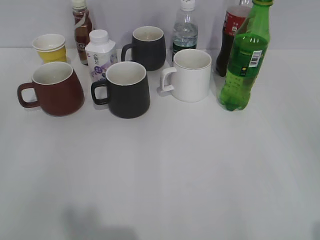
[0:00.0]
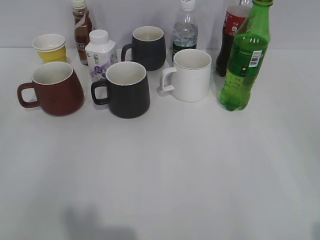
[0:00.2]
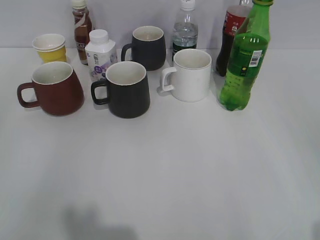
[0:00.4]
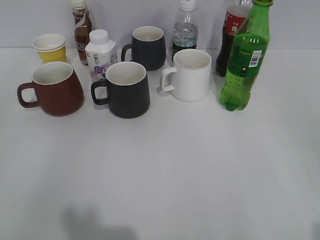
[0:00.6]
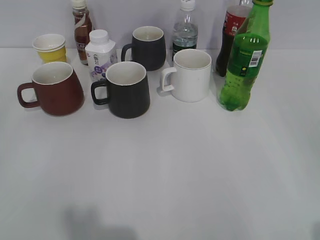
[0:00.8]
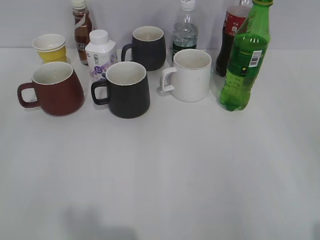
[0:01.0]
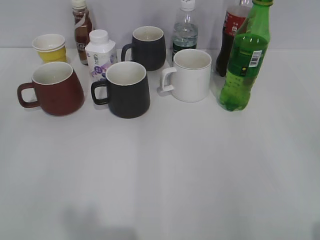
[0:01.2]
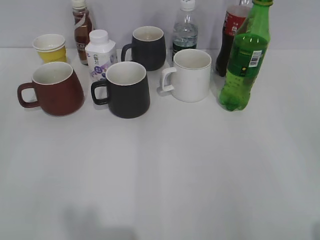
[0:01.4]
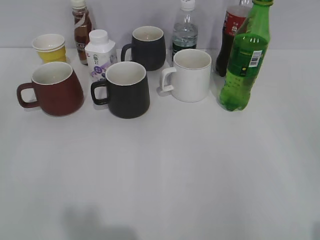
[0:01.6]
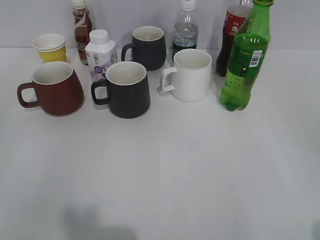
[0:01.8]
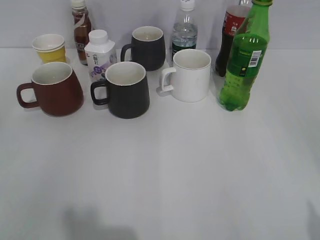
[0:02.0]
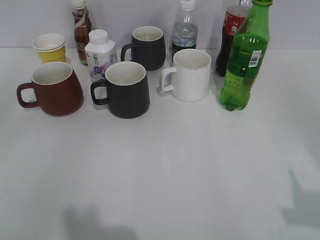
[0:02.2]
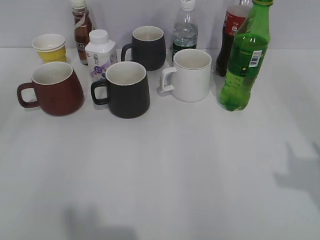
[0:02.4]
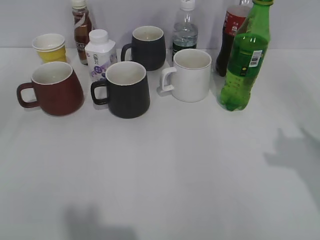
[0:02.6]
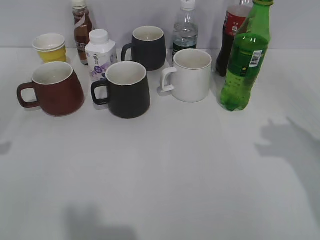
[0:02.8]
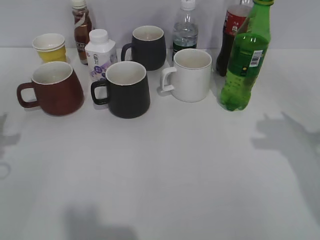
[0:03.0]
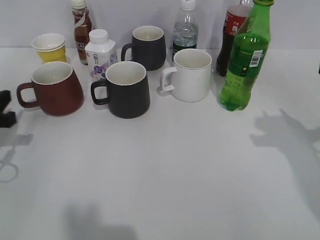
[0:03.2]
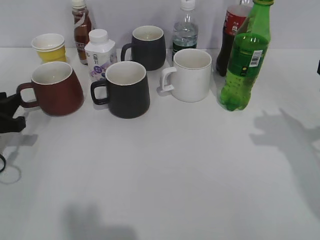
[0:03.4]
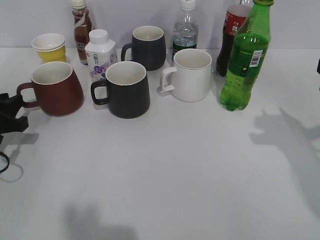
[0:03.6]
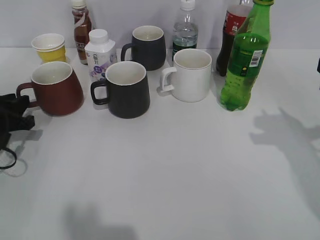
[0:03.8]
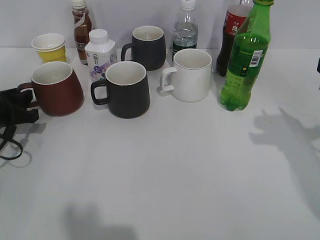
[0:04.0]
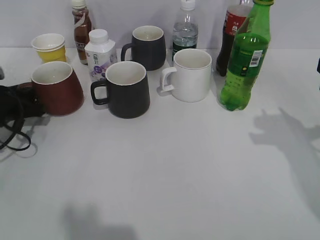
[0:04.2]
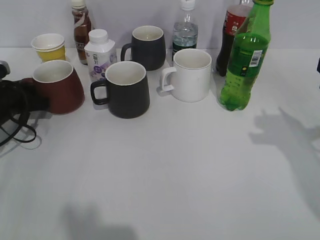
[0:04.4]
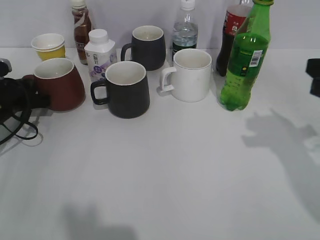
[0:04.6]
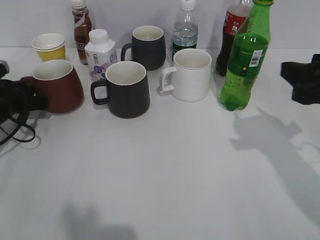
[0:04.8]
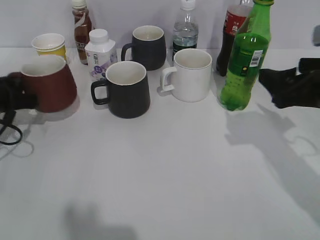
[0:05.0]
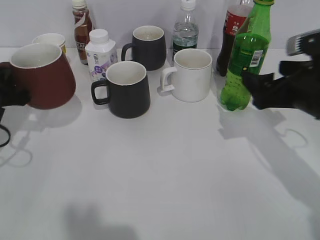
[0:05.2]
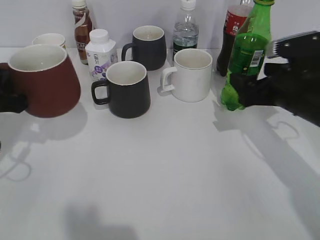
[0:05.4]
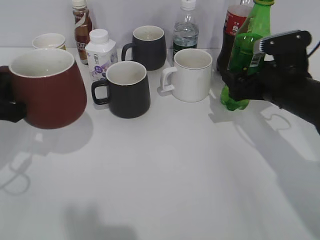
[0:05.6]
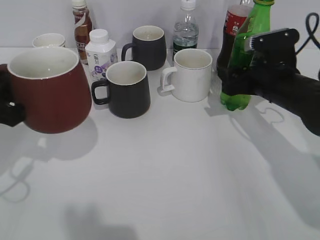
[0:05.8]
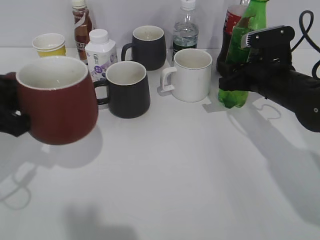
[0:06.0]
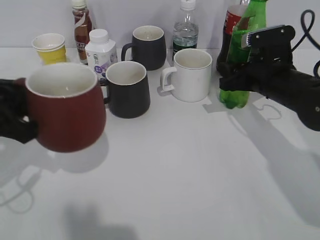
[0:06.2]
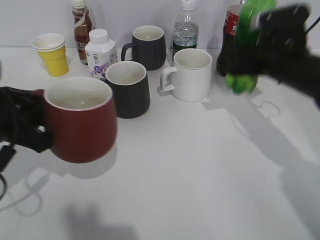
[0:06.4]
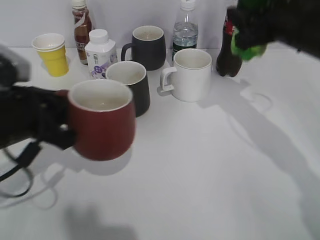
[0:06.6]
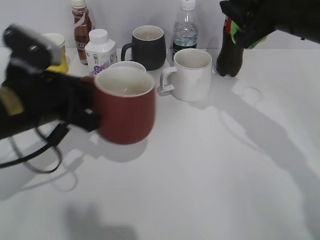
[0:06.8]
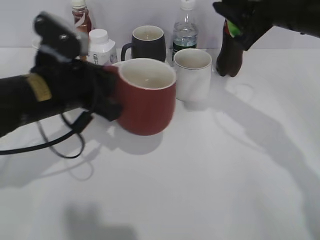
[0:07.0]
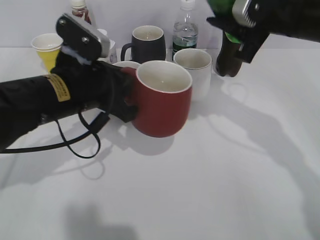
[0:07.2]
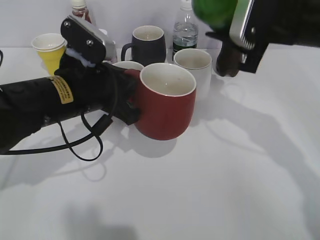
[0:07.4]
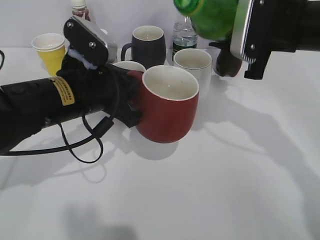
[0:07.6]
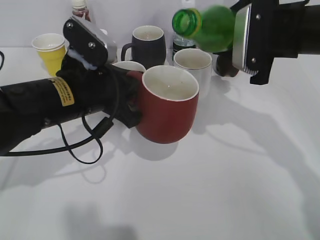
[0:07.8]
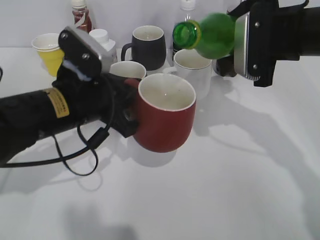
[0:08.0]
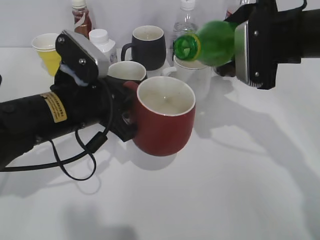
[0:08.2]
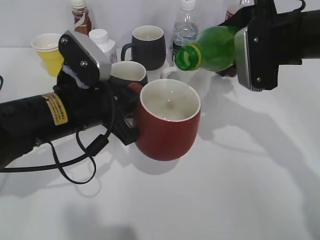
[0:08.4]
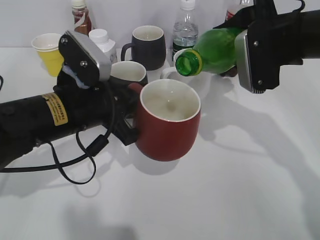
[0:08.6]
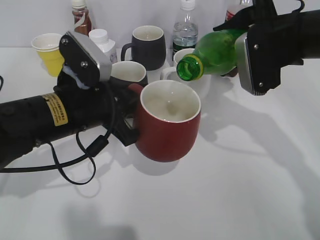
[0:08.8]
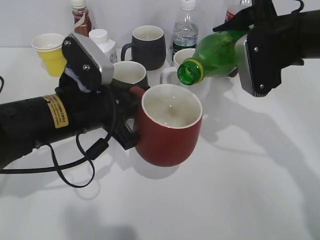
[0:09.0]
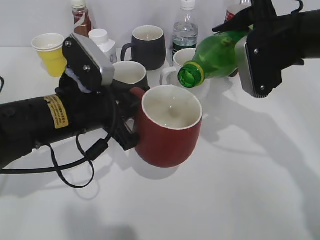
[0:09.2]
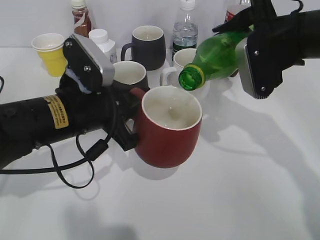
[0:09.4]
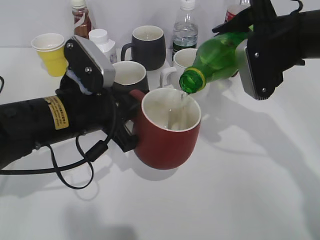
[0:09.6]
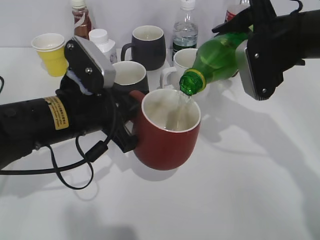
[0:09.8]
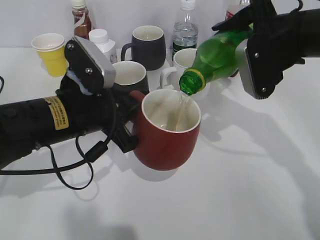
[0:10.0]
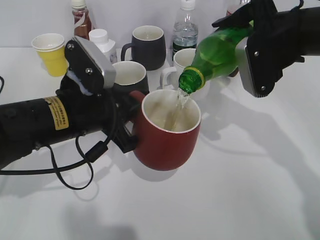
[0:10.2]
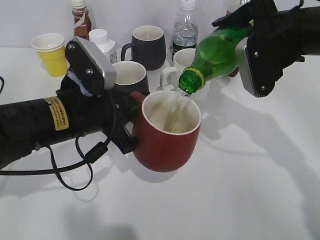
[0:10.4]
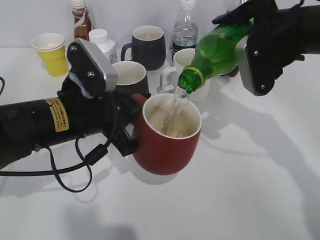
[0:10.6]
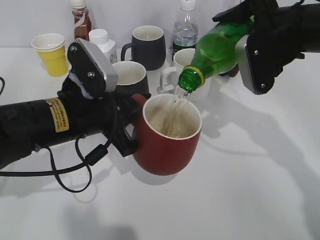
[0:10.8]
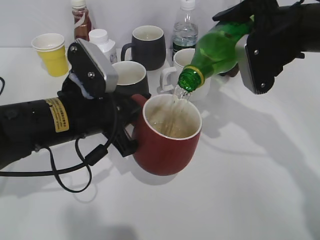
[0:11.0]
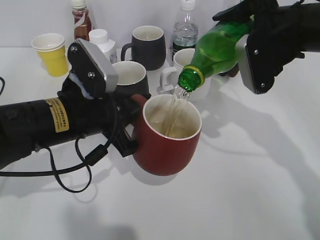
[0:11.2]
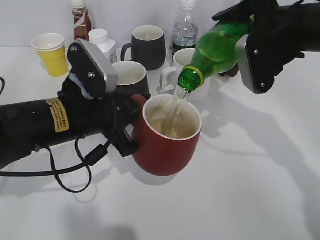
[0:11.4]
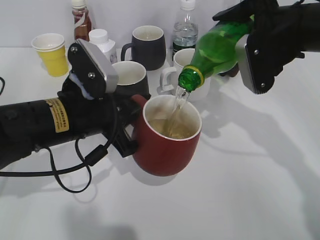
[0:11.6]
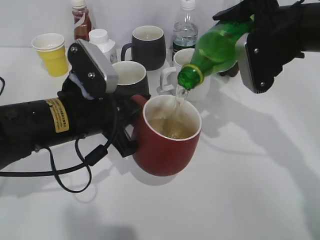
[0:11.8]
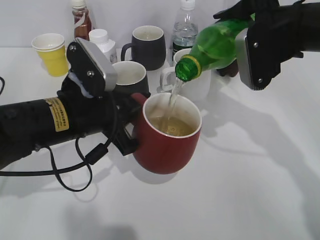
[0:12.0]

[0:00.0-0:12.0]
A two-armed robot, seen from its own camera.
Step, 1.8 to 4.4 s: Grasp the red cup with left gripper.
Step, 4.6 to 6.0 s: Grasp the bottle with sprite with right gripper.
1.6 to 3.0 s: The right gripper moves forward, roughly 20 cm, and closes.
3.0 to 4.4 s: The left gripper travels forward and downward by some 15 cm.
4.4 to 6.0 s: The right gripper is displaced forward, downward and to the left by roughly 20 cm, and opens its fingers, while the left gripper moves backward and upward, approximately 20 cm, and closes its fingers.
6.0 to 7.6 s: The right gripper travels upward by about 10 cm. Meanwhile the left gripper heads to the right and forward, covering approximately 15 cm.
9.0 to 10.4 s: The grippers move only a little.
10.4 to 12.0 s: The two grippers keep their place.

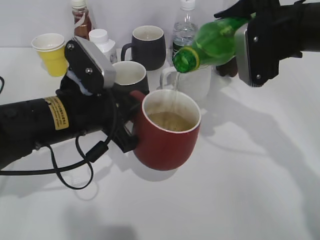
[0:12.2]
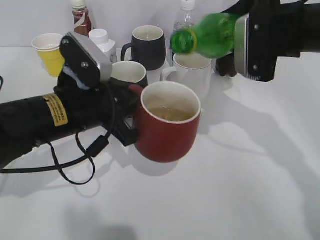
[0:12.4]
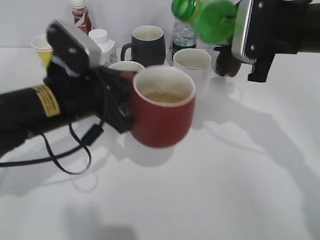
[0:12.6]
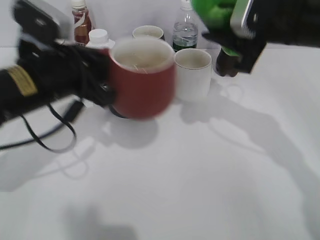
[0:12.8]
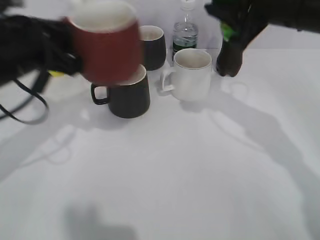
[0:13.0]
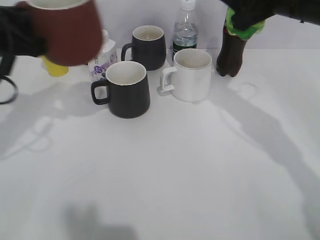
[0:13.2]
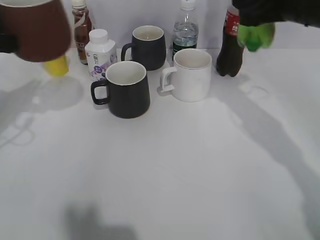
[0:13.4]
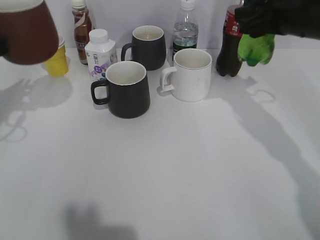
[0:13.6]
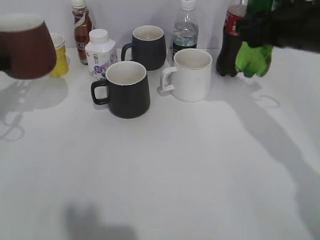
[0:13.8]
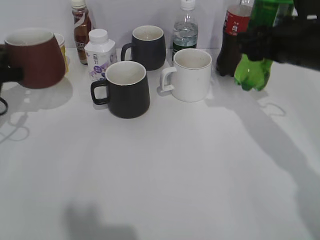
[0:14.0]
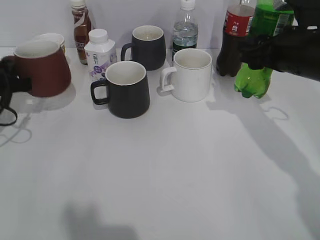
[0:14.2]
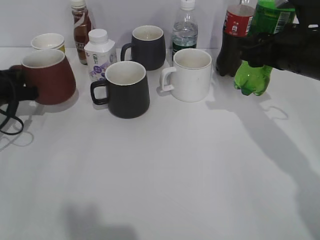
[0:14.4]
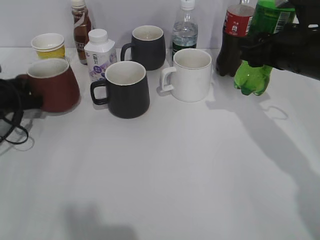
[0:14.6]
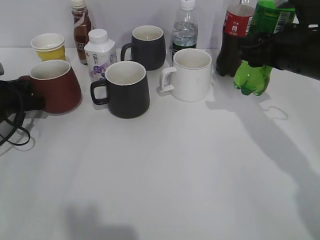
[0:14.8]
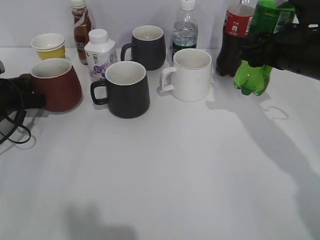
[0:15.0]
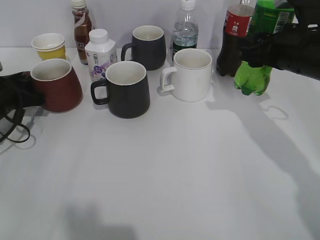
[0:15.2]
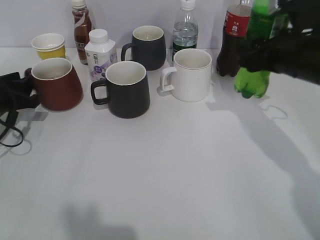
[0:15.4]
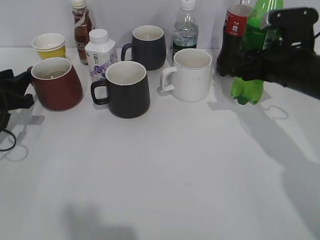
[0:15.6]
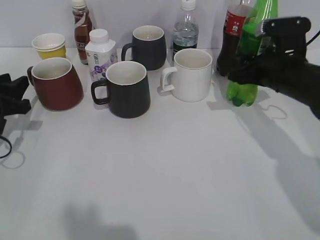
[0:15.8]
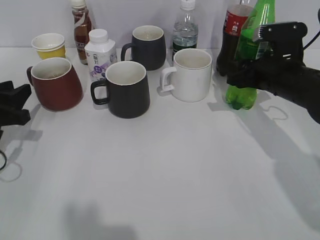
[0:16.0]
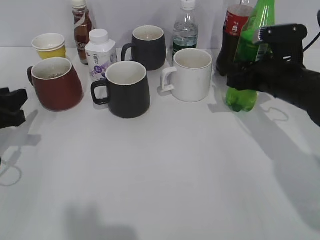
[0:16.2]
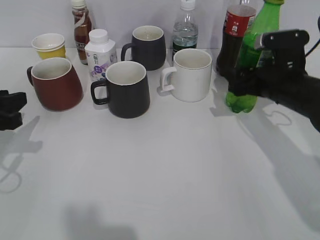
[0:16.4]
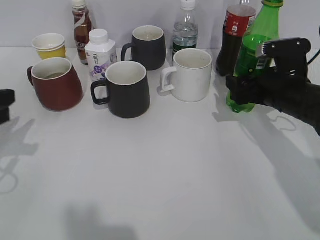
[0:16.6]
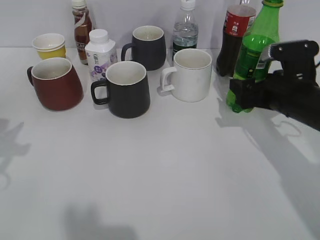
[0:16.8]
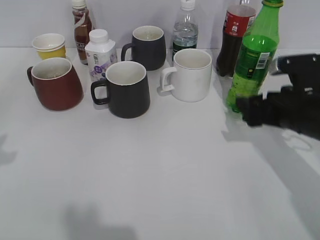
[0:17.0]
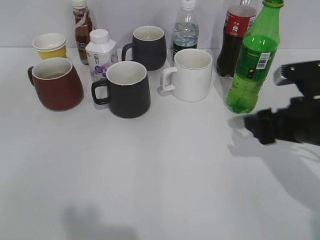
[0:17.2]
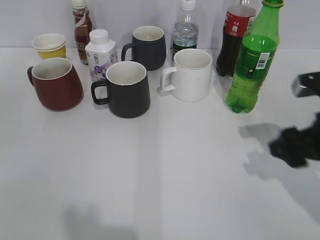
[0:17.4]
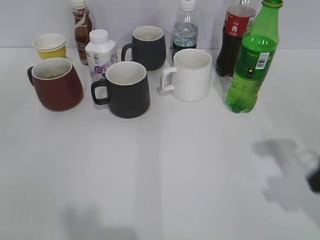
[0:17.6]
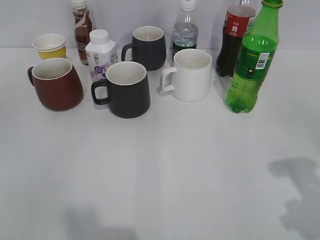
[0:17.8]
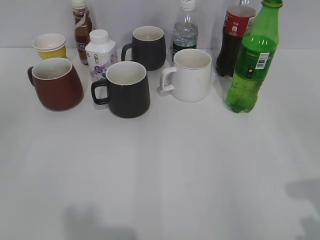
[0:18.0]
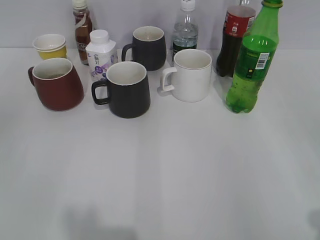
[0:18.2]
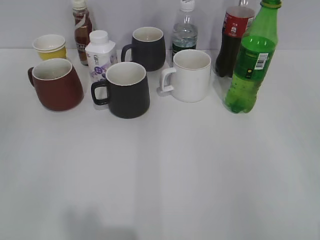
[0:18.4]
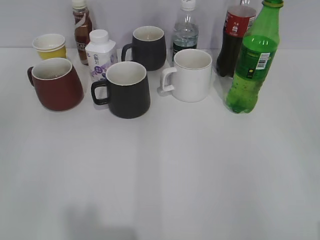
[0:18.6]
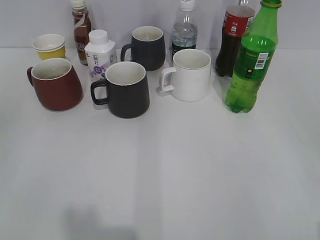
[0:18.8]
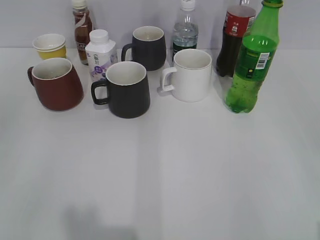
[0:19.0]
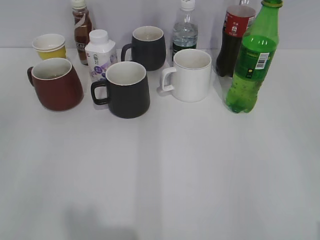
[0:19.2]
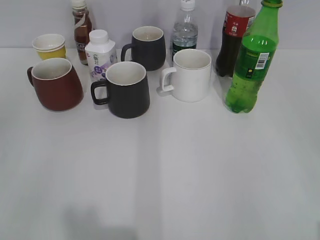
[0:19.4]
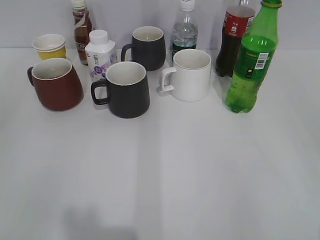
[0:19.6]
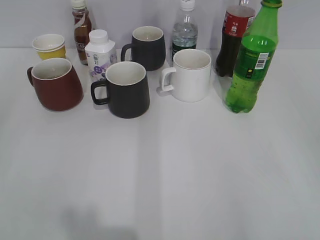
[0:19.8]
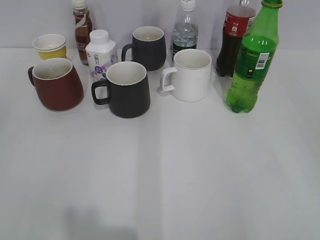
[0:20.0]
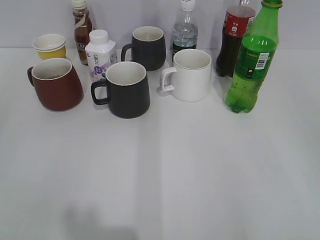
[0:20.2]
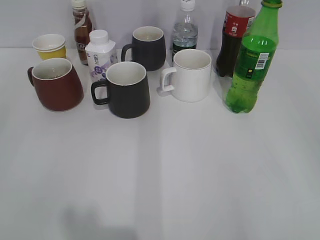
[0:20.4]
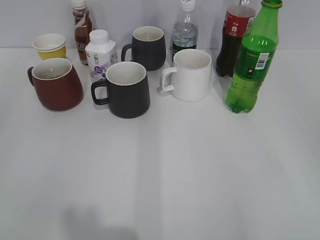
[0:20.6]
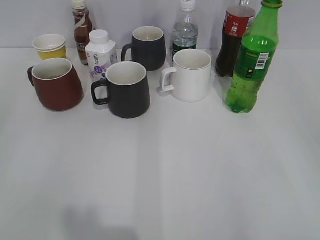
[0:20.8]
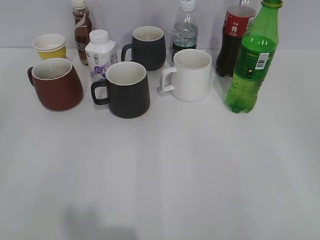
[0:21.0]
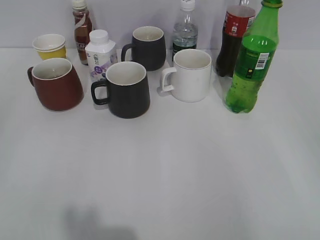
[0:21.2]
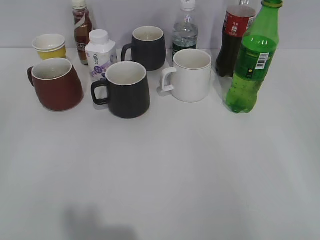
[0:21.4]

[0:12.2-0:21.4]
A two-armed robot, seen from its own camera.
Step, 12.6 to 13.2 s: Place the red cup on the table with left gripper.
Step, 13.4 to 17.0 s: Place the sprite bottle on the table with right gripper.
12.2 to 13.8 s: The left gripper shifts approximately 20 cm to the left.
13.8 to 15.2 s: The left gripper moves downward, roughly 10 cm, and opens up.
15.2 to 16.8 s: The left gripper travels backward and upward by roughly 20 cm. The right gripper goes approximately 5 cm downward, and opens up.
16.8 to 18.4 s: The left gripper goes some 15 cm backward. The right gripper travels backward and upward by roughly 35 cm.

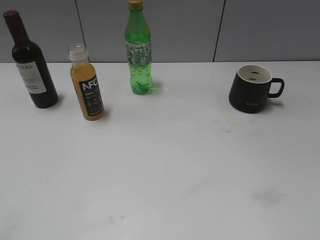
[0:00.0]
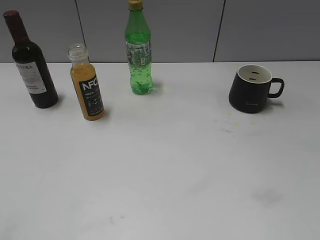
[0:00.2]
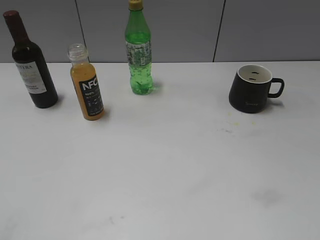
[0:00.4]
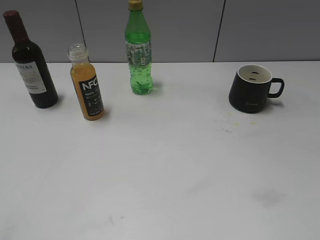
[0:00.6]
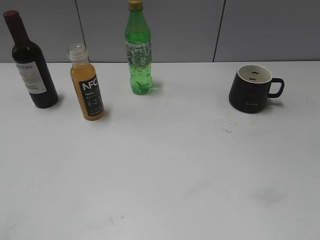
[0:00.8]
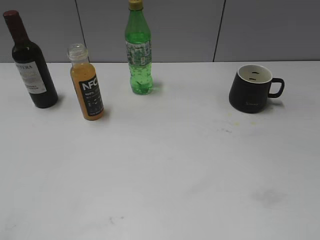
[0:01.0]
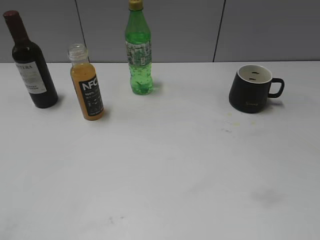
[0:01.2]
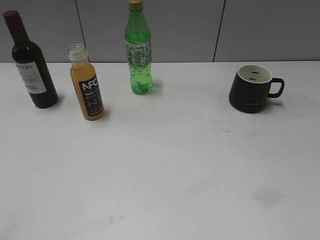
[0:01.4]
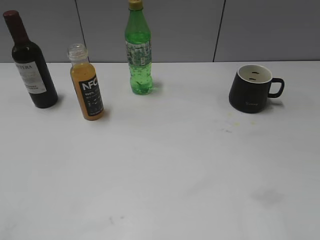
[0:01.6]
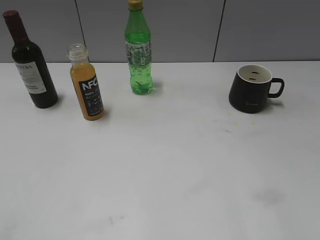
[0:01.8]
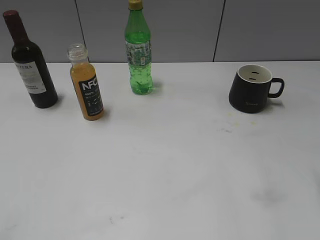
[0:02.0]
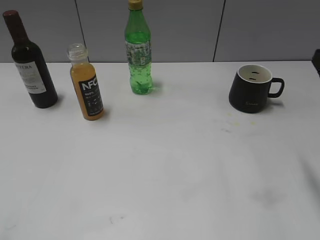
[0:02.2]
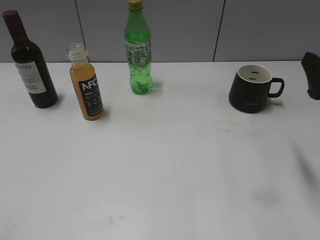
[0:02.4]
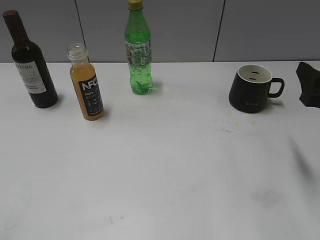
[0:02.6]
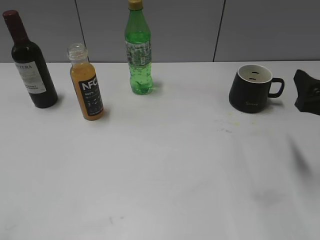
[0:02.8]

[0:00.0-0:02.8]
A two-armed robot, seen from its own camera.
1.4 to 2.8 s: The right gripper goes roughly 25 cm forward and downward.
